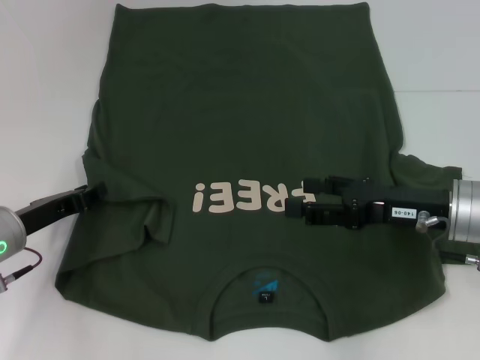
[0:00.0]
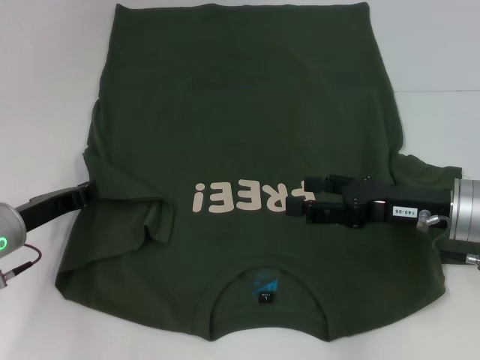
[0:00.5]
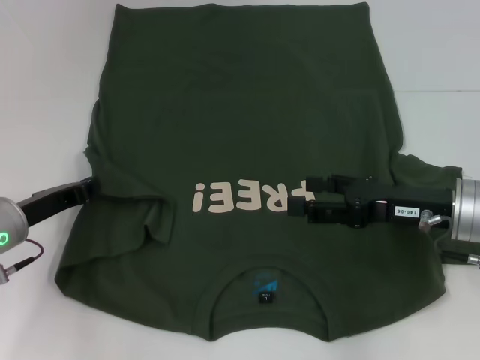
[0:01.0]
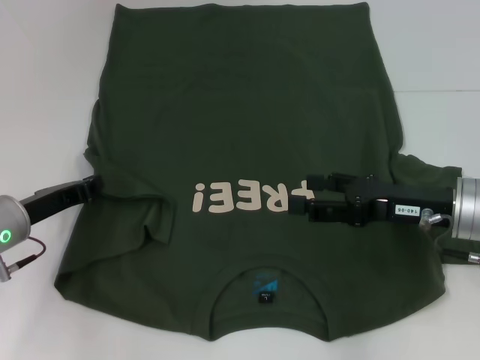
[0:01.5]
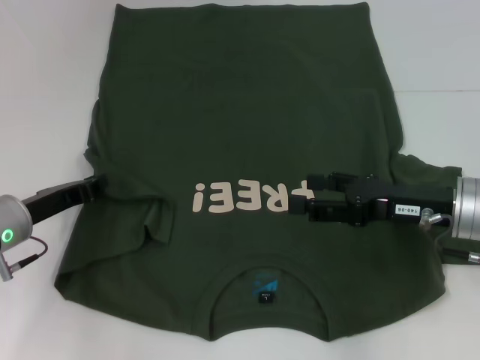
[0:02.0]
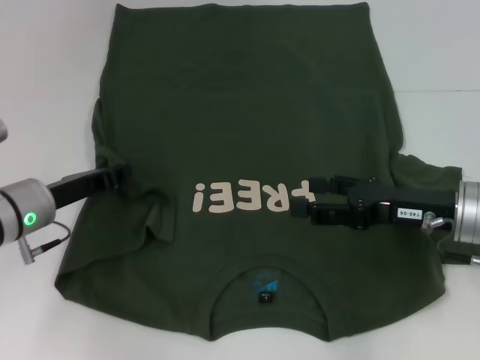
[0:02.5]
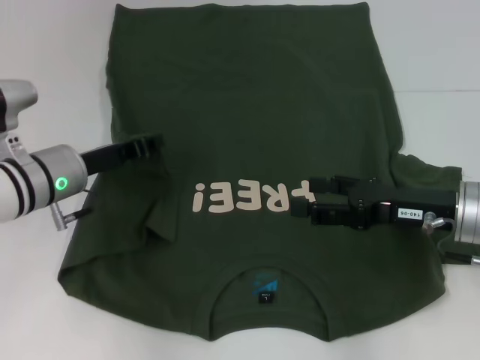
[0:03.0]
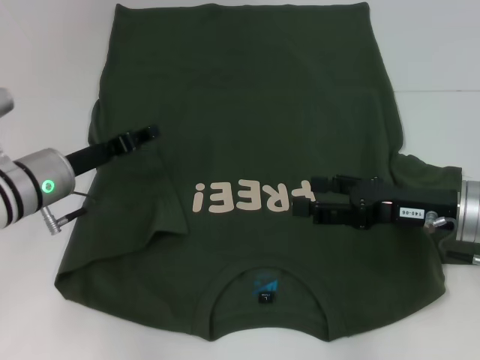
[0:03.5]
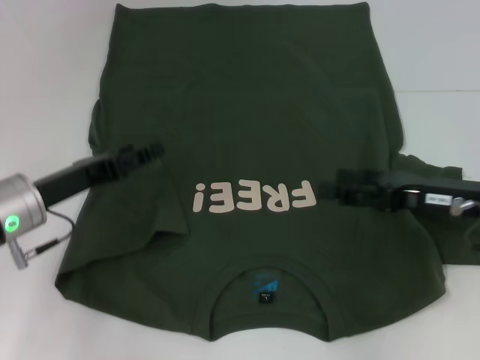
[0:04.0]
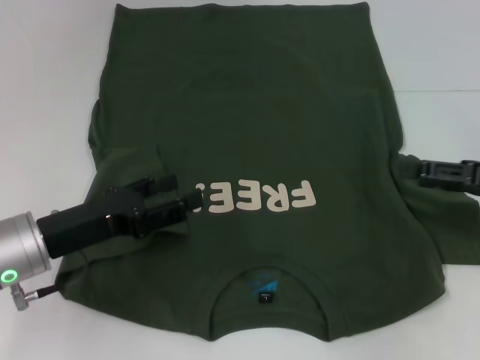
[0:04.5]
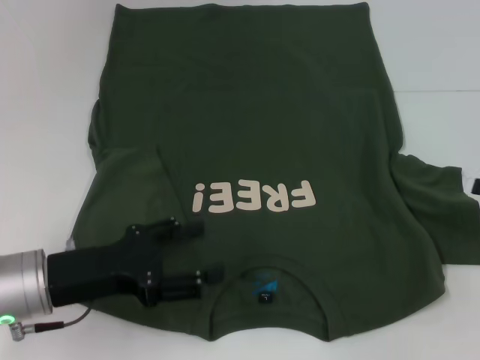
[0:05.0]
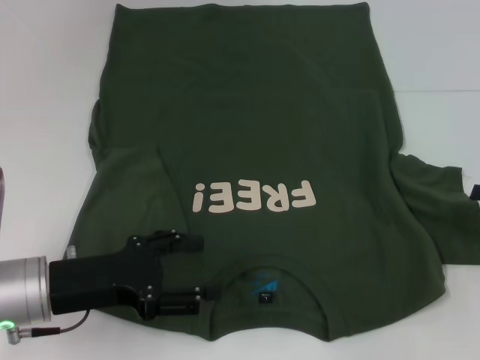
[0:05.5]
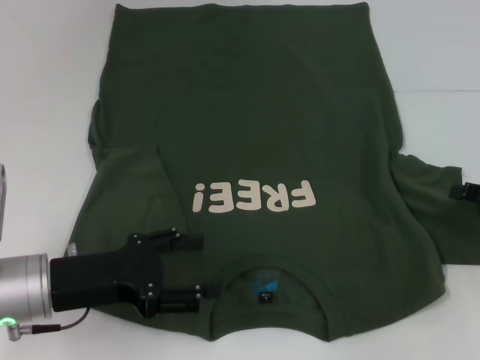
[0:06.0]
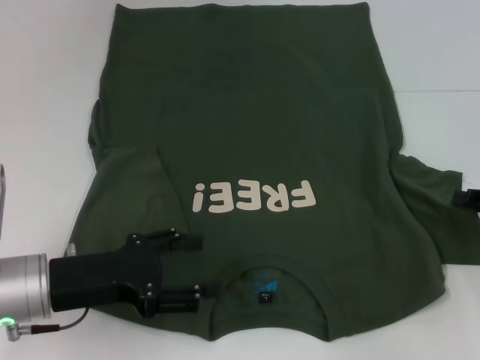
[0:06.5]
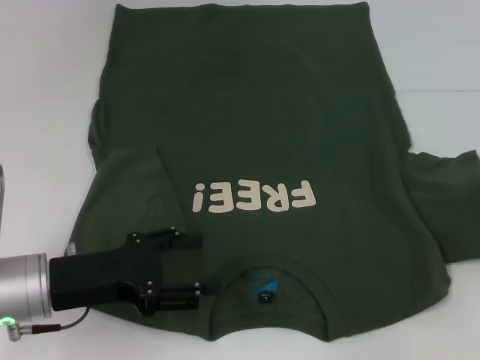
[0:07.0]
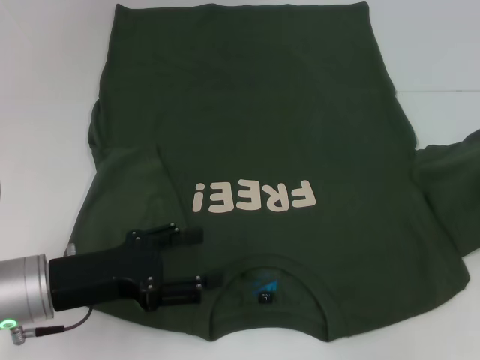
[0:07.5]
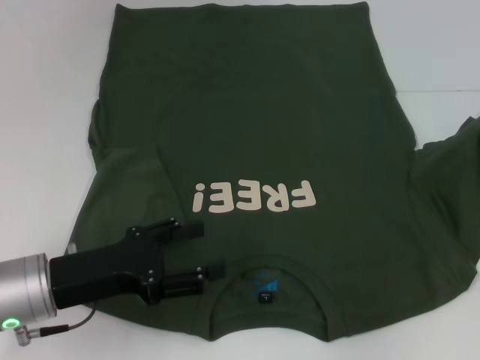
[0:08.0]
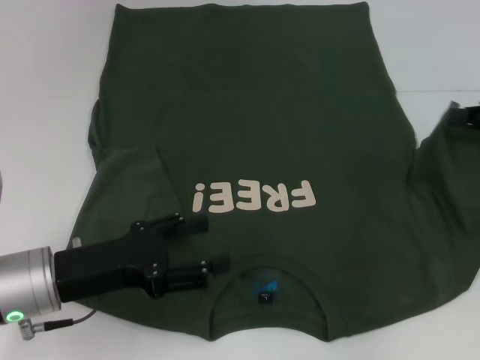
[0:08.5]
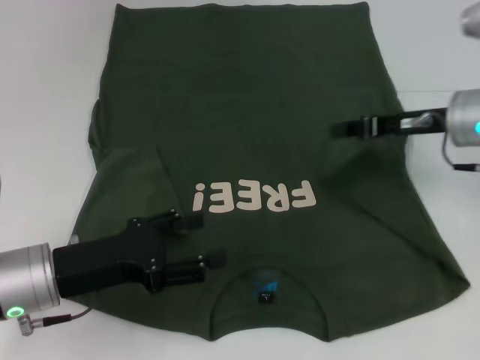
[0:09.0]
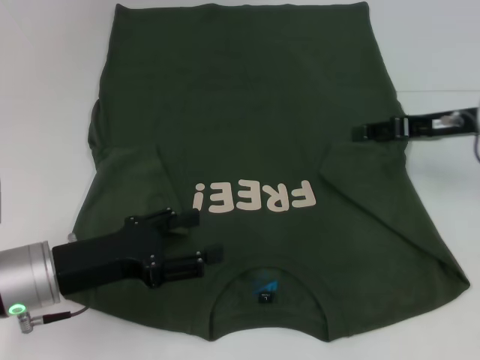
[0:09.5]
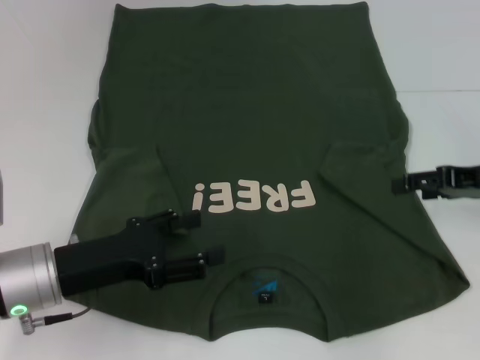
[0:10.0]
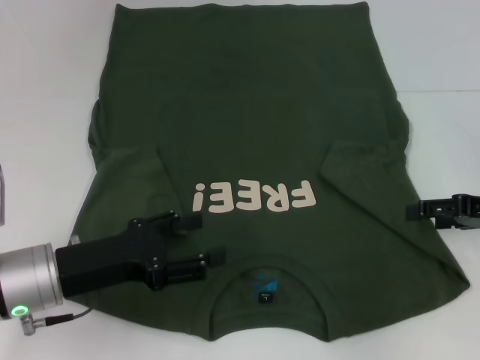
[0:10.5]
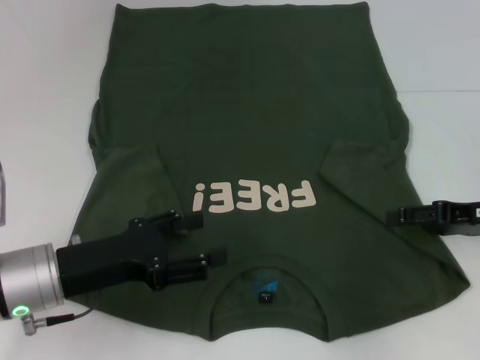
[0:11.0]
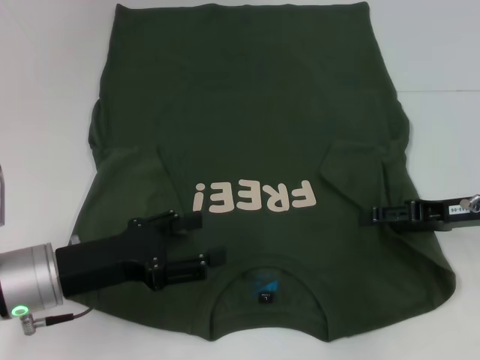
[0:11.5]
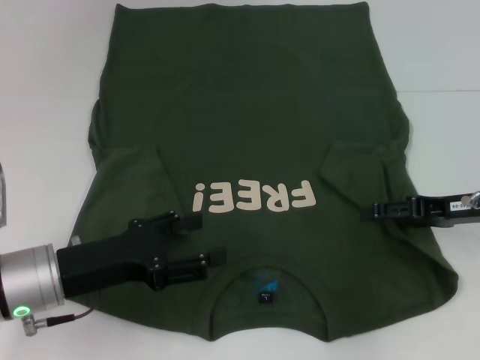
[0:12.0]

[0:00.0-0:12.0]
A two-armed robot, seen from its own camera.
Step, 0:00.0 to 0:03.0: Fold the bottom left sleeve with your left hand.
0:00.0 to 0:02.0: The left gripper closes.
0:02.0 to 0:04.0: The left gripper opens its fingers.
0:04.0 to 0:06.0: The right gripper goes roughly 10 cm to the right. The left gripper heads backward, covering roughly 5 cm.
0:06.0 to 0:08.0: The right gripper travels upward and forward by about 10 cm, and closes up.
0:08.0 to 0:10.0: The right gripper heads to the left, covering approximately 5 cm, and opens.
0:10.0 to 0:12.0: There are only small adjustments of the grippers.

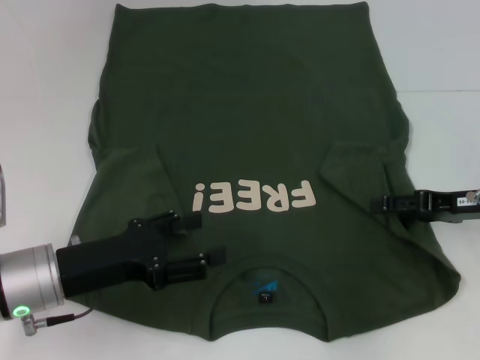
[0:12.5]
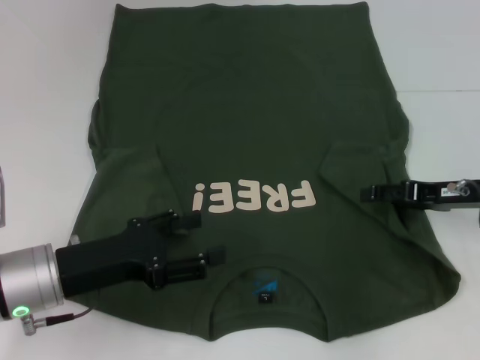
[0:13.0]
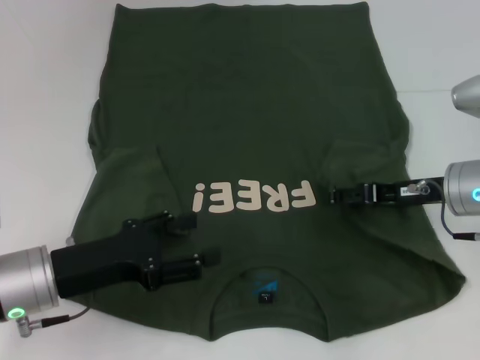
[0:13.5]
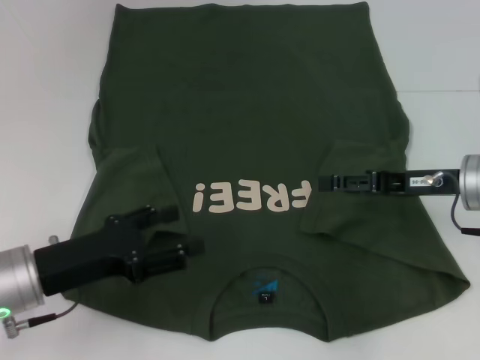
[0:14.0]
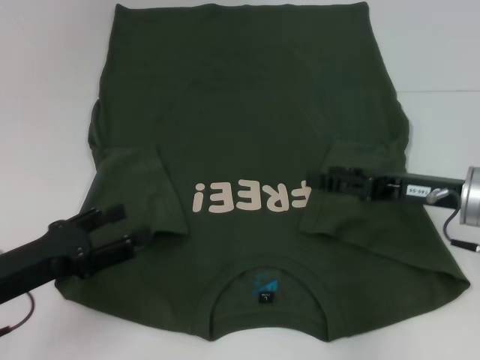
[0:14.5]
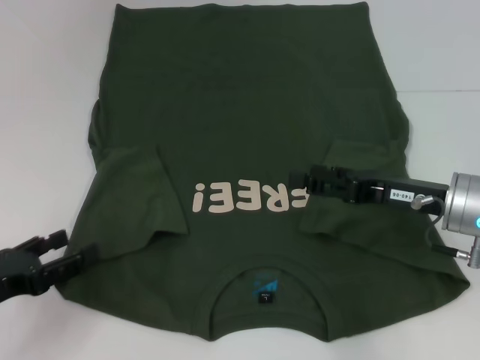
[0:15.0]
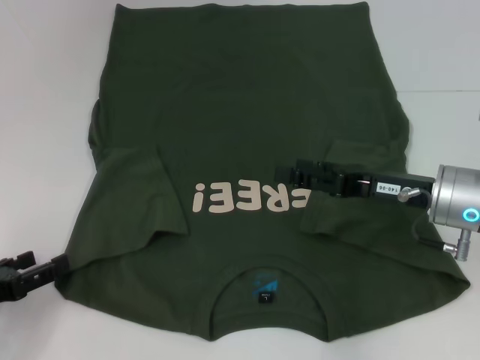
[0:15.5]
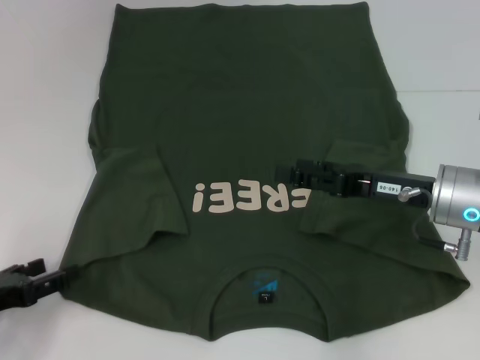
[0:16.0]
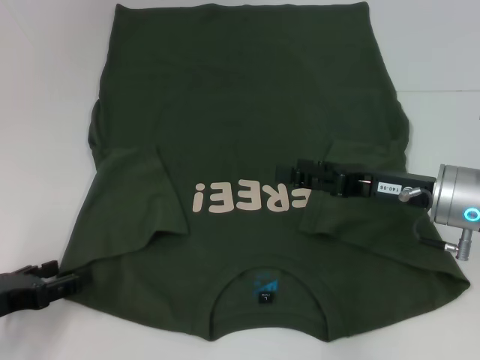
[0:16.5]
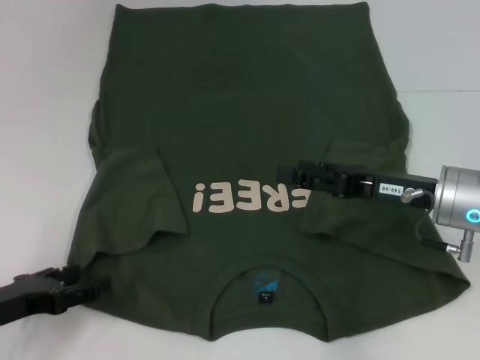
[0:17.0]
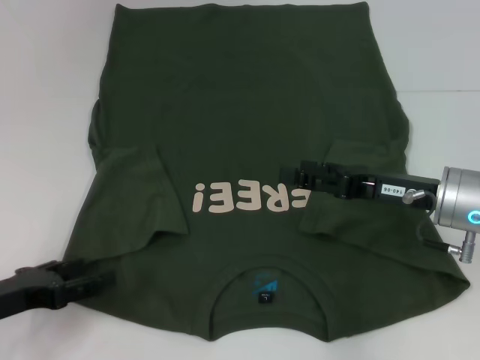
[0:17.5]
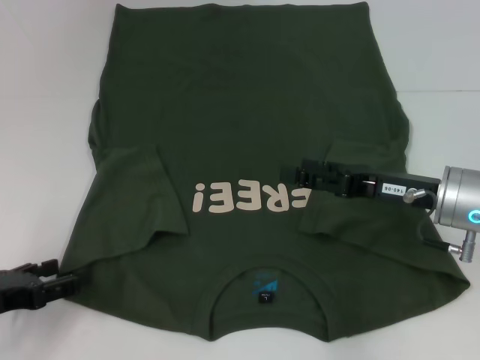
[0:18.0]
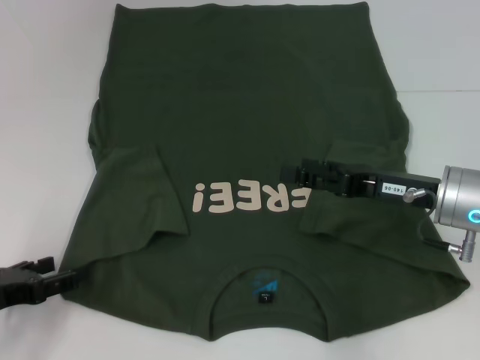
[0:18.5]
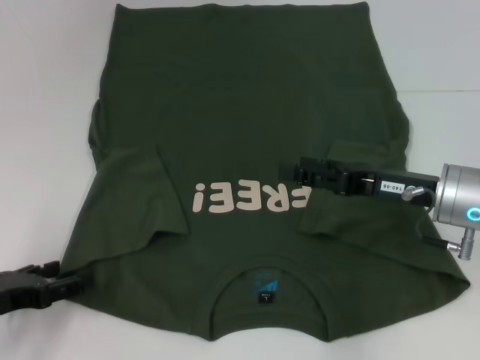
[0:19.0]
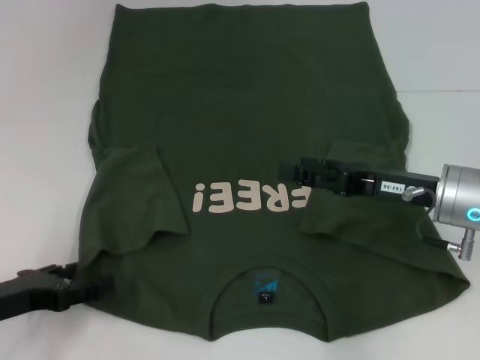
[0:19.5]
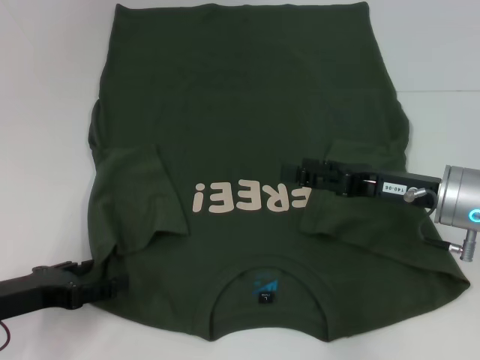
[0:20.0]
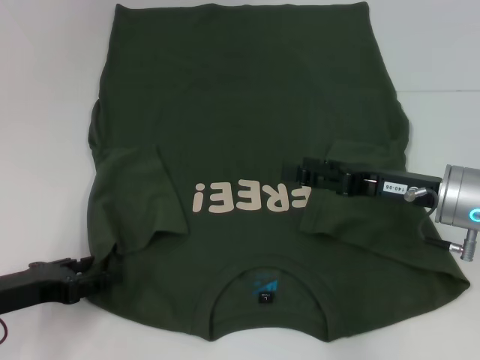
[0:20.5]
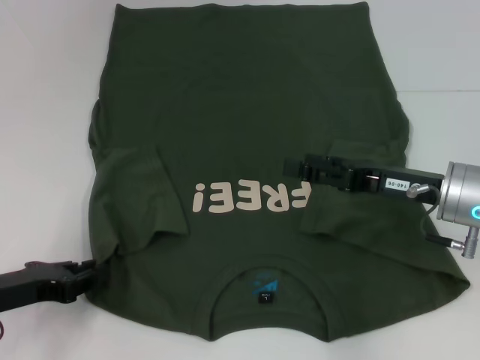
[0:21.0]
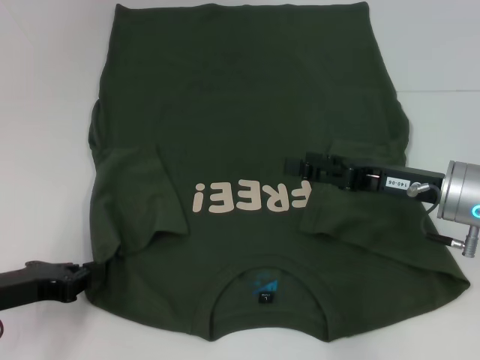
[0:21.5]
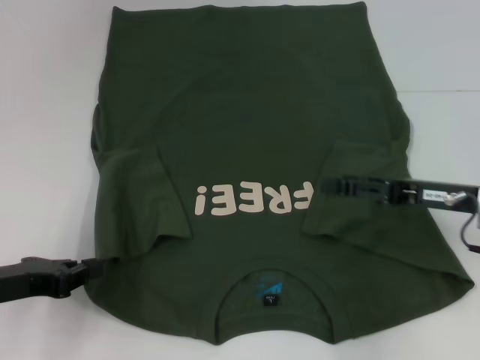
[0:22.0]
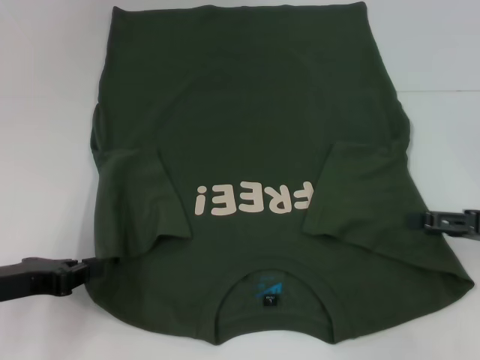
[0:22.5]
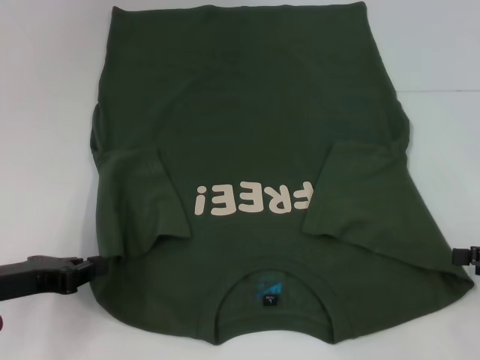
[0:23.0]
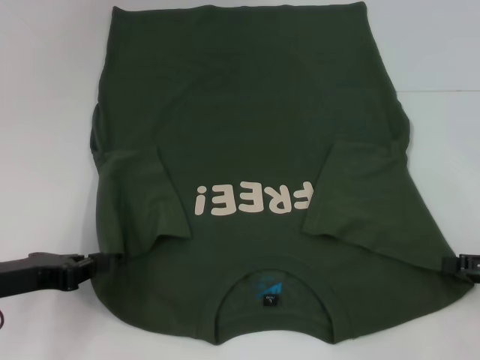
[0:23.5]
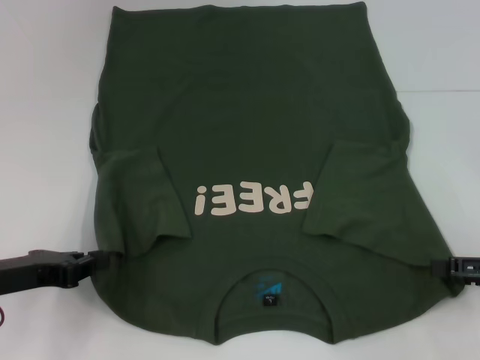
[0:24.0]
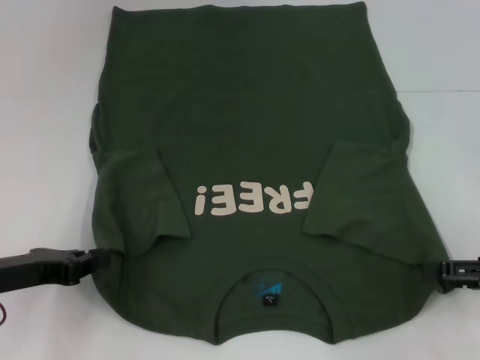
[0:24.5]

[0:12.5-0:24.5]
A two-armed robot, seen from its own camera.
Step, 0:14.0 to 0:21.0: Grab the bottom left corner with your left hand.
0:12.5 to 0:14.5: Both grippers travel together to the left, some 5 cm.
0:14.5 to 0:16.5: The left gripper shifts by about 5 cm.
0:16.5 to 0:20.5: The grippers stay close to where they were, moving slightly.
0:20.5 to 0:22.5: The left gripper closes up, while the right gripper moves to the right, approximately 10 cm.
0:22.5 to 0:24.5: There are only small adjustments of the grippers.

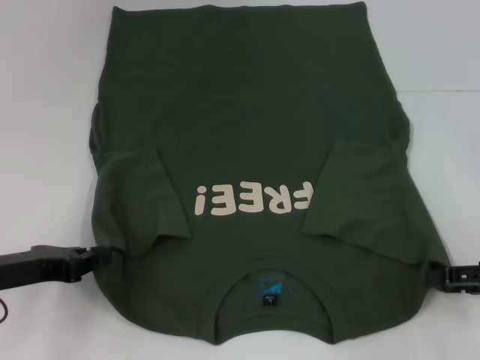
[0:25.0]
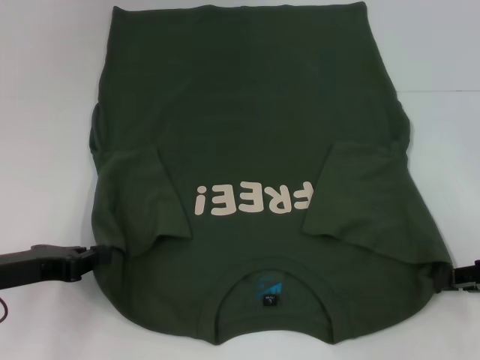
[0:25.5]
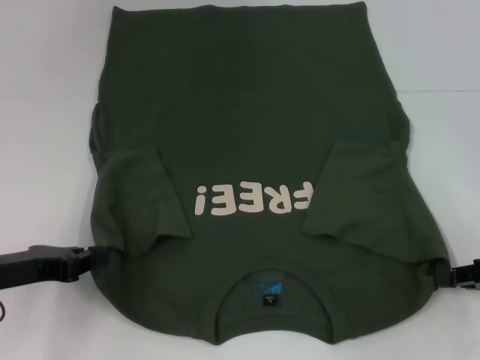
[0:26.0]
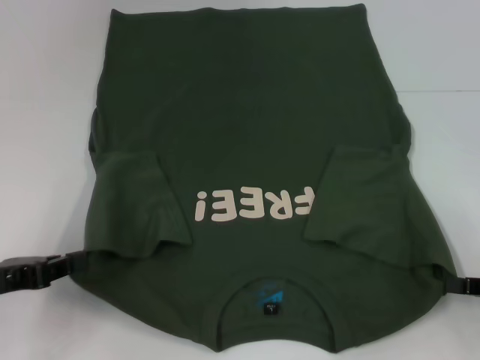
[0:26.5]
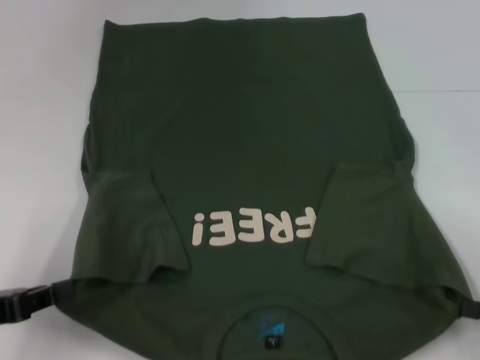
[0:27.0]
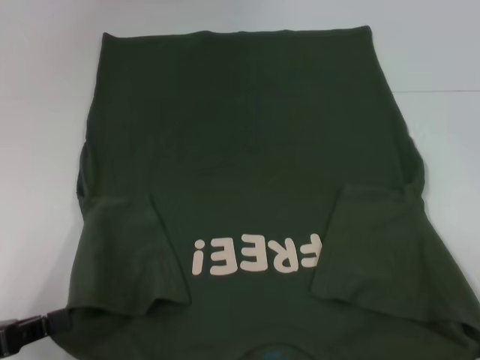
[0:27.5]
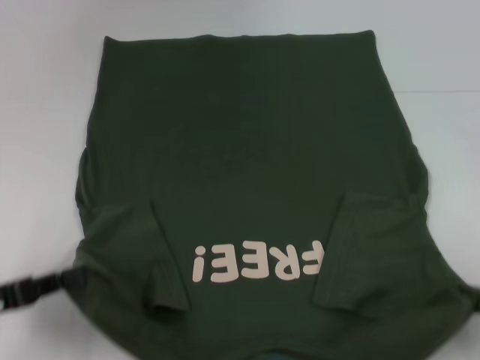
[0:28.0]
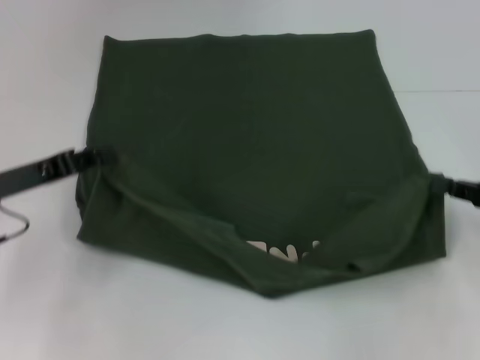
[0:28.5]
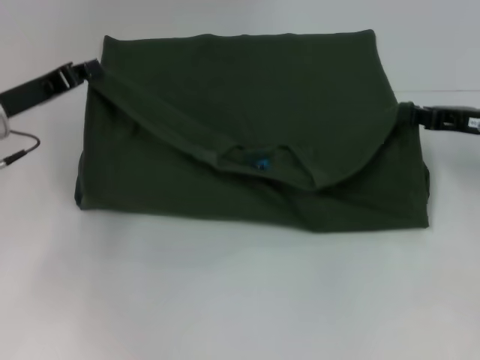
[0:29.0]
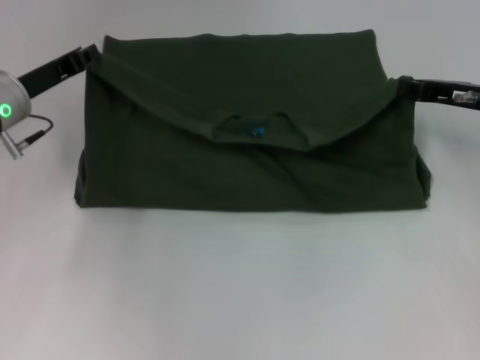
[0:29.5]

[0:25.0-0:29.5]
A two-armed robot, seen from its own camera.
0:25.0 to 0:27.0: Both grippers travel together backward, approximately 5 cm. The right gripper closes its fingers.
0:27.0 to 0:29.5: Both grippers travel together forward, some 20 cm.
